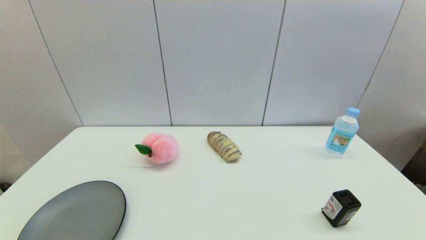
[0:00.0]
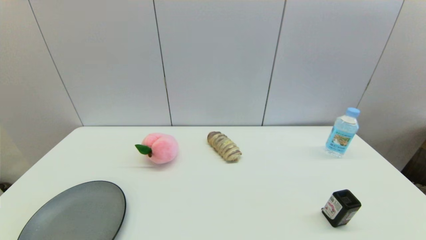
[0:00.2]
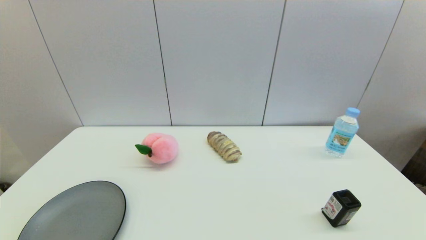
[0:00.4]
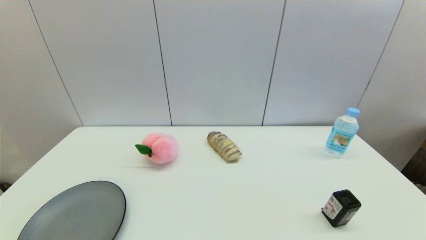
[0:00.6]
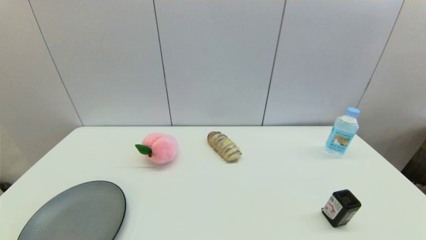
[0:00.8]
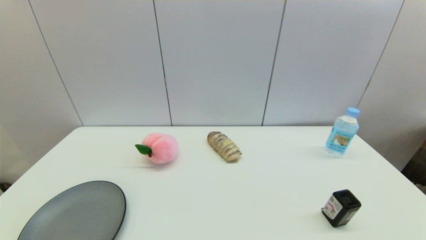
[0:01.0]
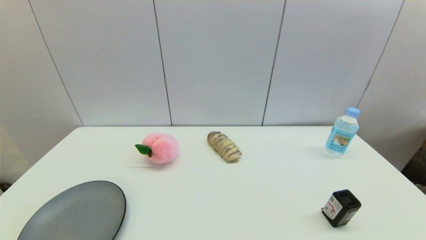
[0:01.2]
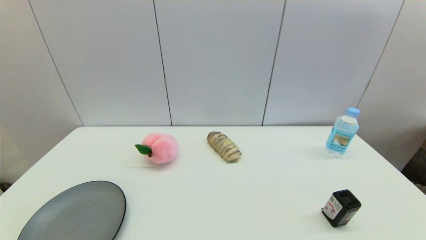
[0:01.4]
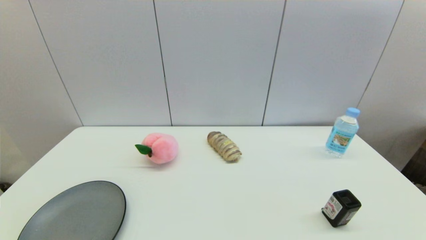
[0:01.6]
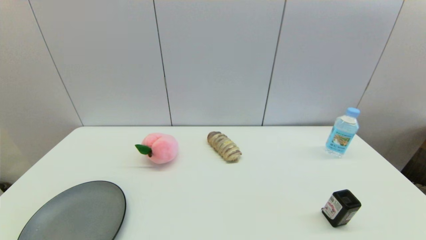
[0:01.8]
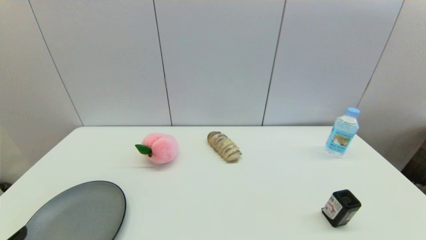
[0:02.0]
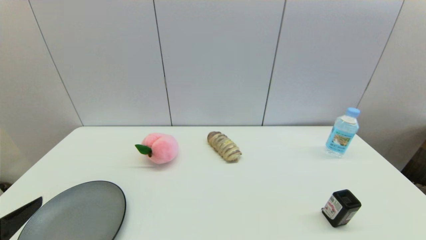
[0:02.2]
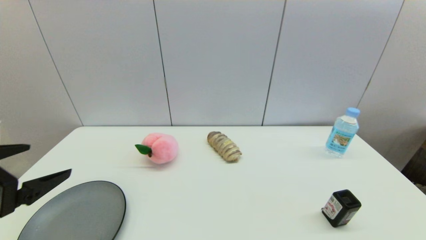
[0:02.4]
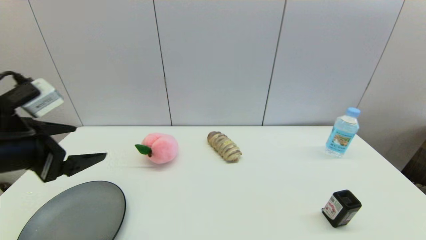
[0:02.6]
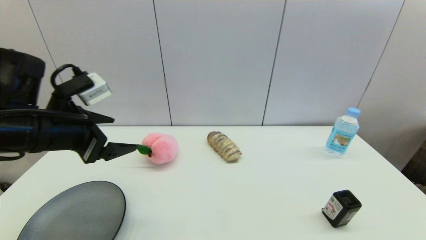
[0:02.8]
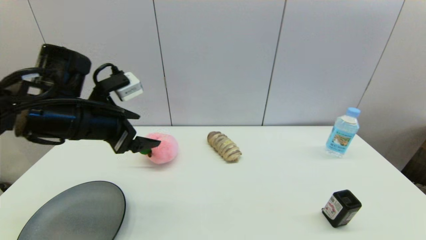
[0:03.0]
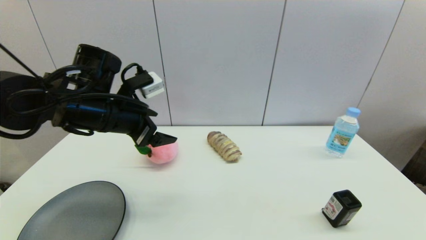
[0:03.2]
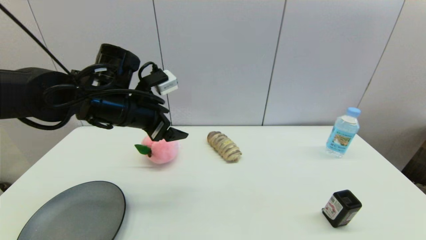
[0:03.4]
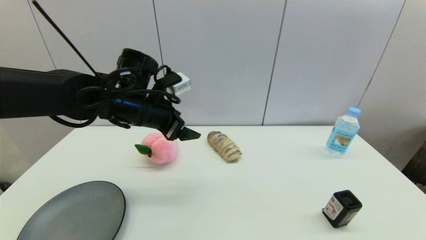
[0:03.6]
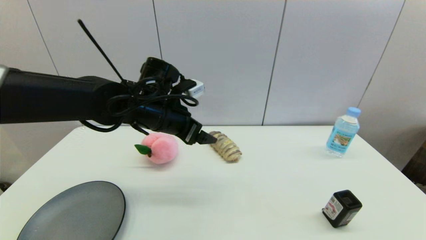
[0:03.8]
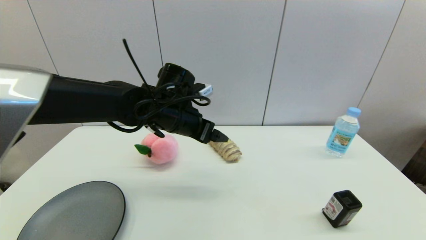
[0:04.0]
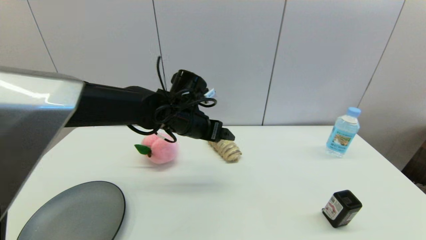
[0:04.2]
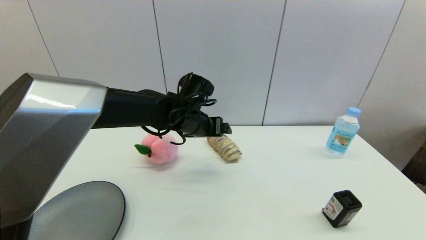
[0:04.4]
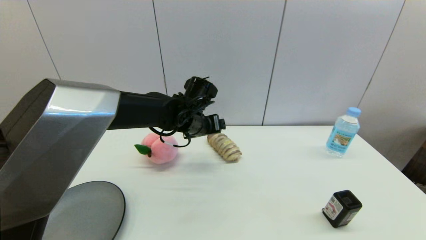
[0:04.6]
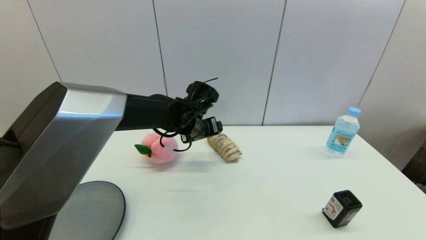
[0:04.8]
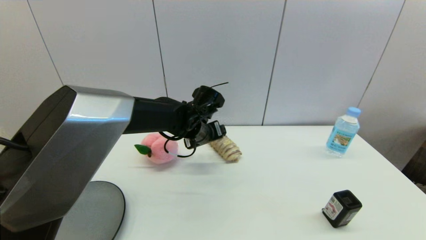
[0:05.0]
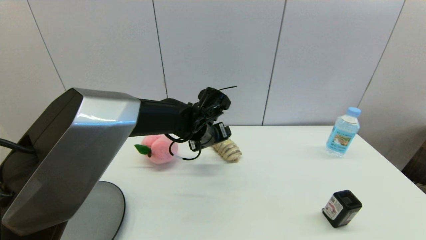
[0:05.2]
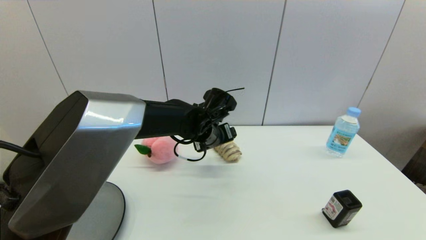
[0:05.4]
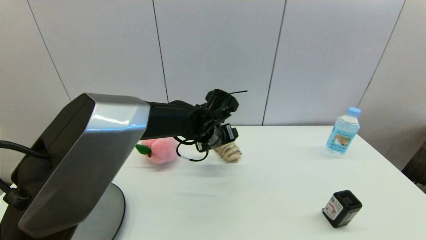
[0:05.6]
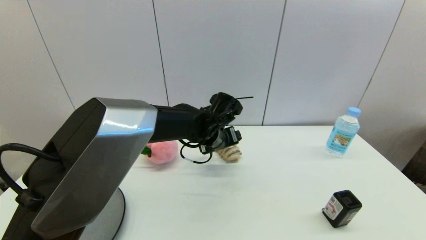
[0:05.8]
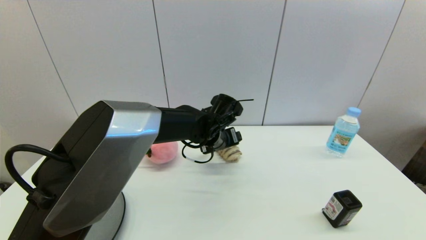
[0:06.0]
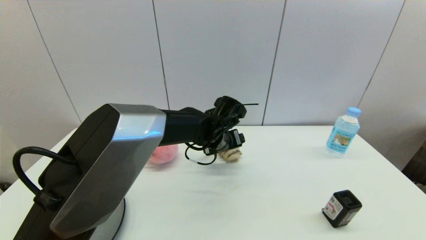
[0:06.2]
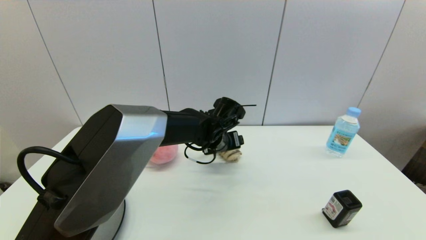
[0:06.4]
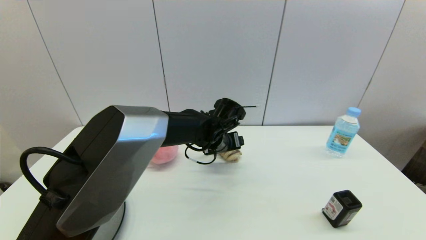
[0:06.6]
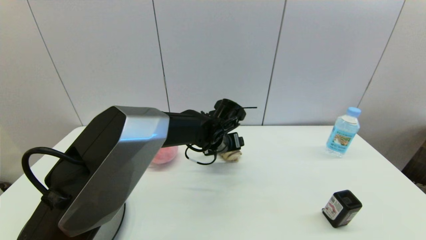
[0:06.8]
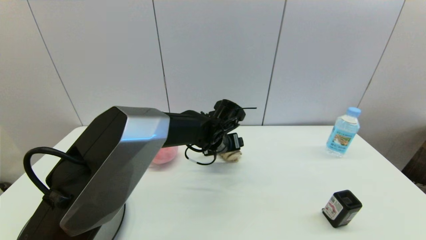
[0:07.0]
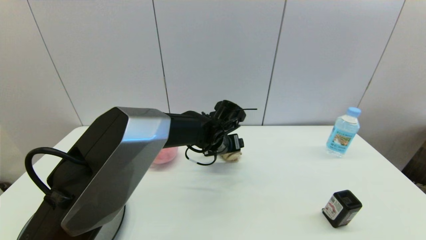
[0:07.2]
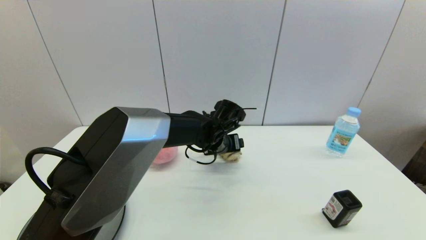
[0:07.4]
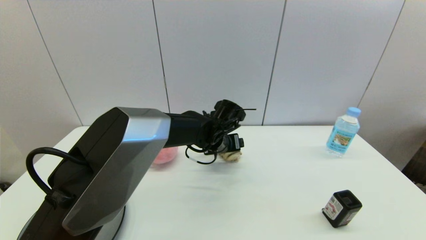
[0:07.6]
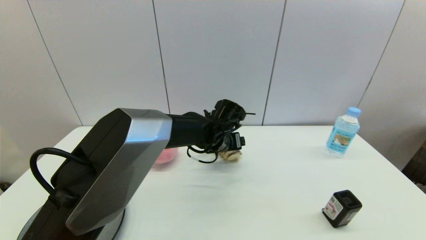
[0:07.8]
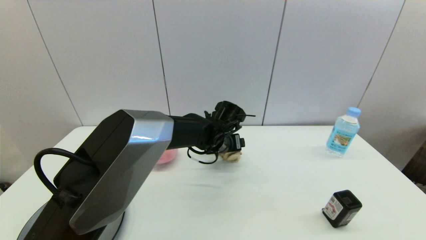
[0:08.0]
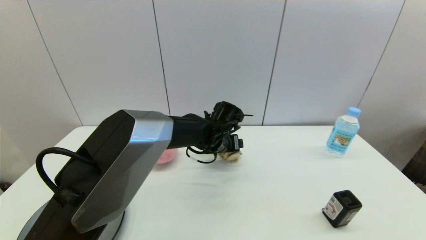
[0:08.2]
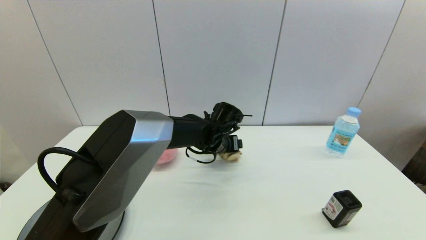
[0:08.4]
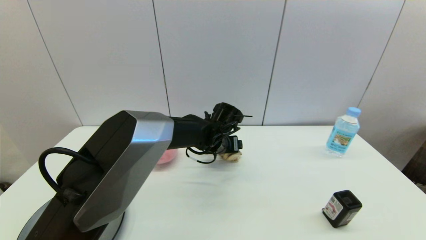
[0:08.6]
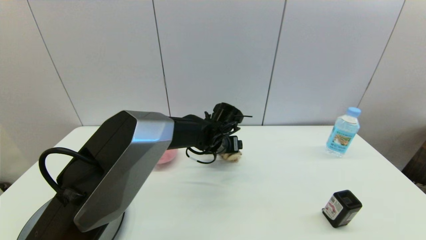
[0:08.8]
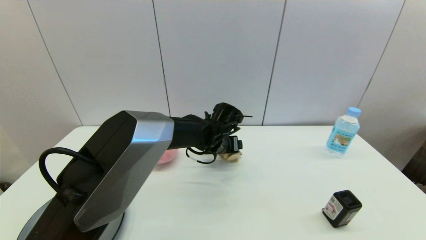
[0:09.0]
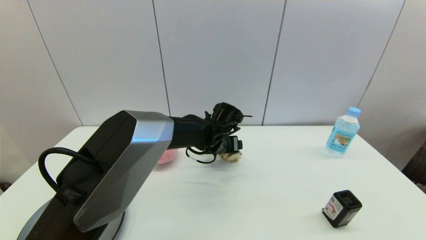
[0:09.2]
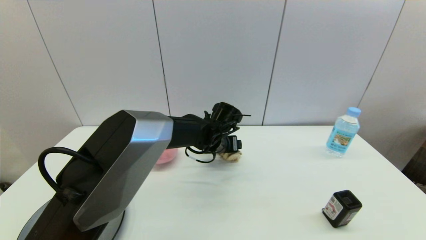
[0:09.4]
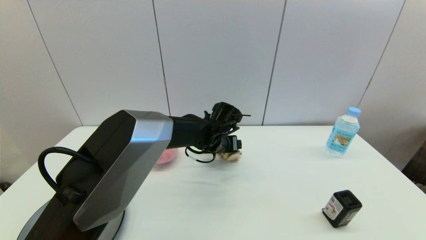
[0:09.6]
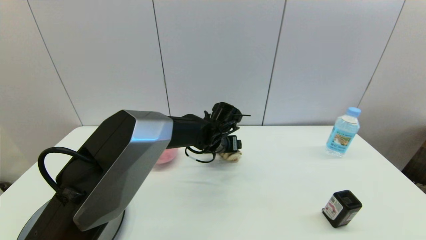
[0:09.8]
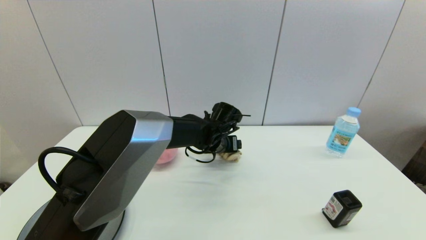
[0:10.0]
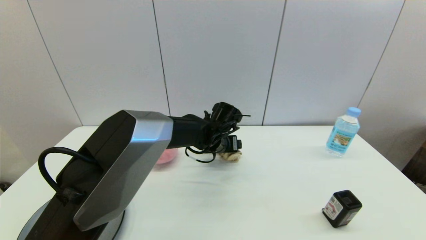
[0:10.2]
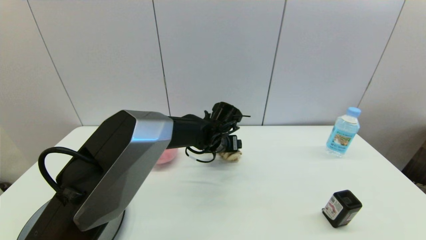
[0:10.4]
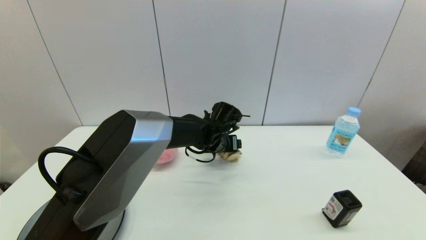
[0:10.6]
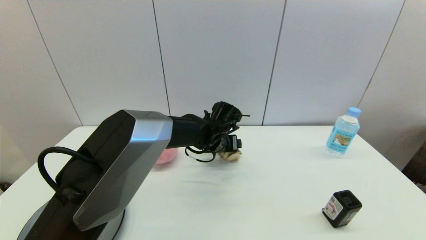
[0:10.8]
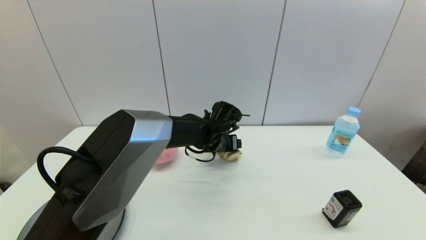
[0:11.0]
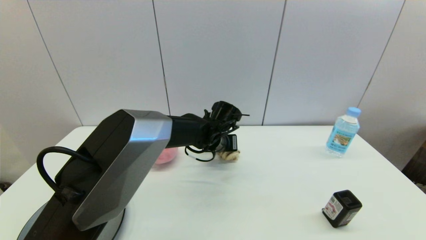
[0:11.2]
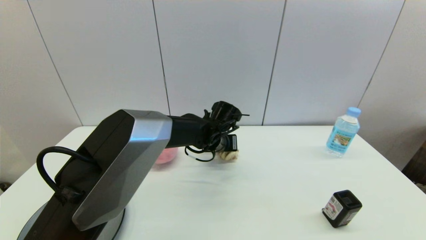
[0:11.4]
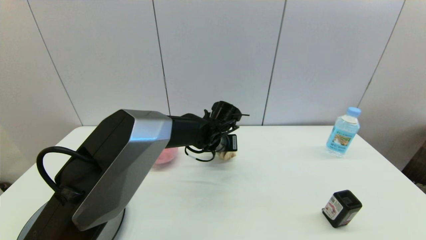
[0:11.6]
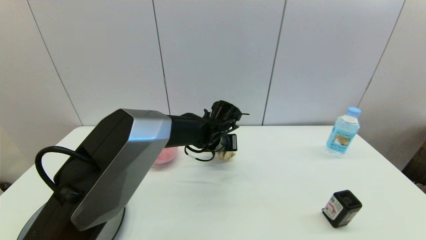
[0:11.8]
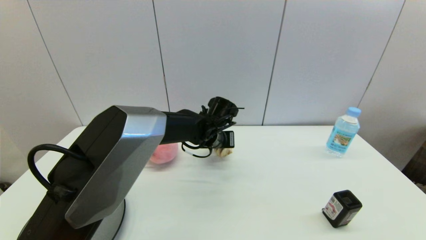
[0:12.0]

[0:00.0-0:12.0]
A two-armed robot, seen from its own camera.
Step, 2.0 to 11.8 s: Grasp the long bread with left gripper.
0.0 to 1.6 s: Both grippers stay about where they are.
1.6 to 3.0 s: The left gripper travels forward and upward by approximately 30 cm.
3.0 to 4.4 s: The left gripper goes approximately 20 cm to the right, forward and downward.
4.4 to 6.0 s: The left gripper moves to the right, some 5 cm.
6.0 to 9.0 s: The grippers stay close to where they were, moving slightly.
9.0 to 10.4 s: Both grippers stay about where they are.
10.4 to 12.0 s: The left gripper closes up.

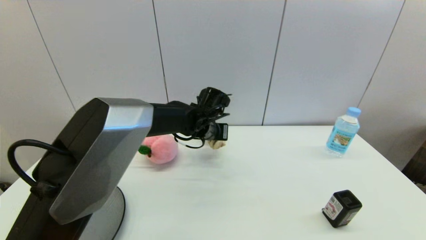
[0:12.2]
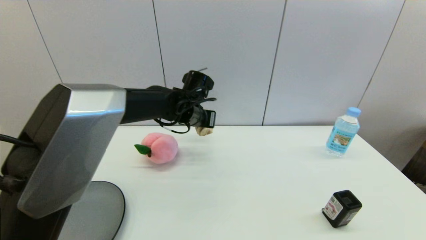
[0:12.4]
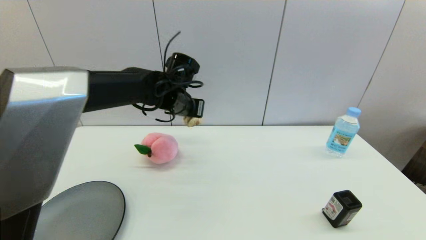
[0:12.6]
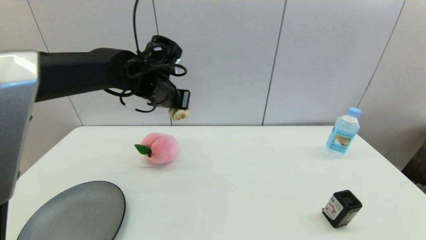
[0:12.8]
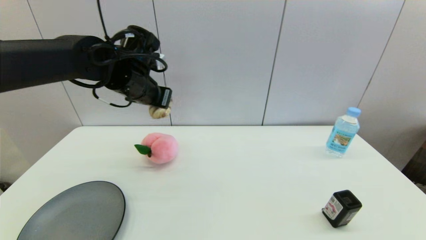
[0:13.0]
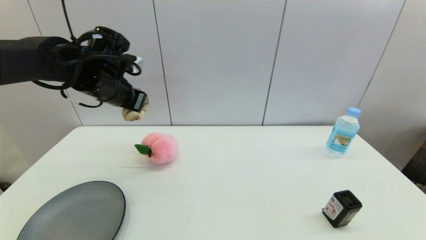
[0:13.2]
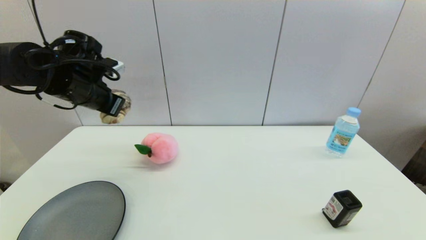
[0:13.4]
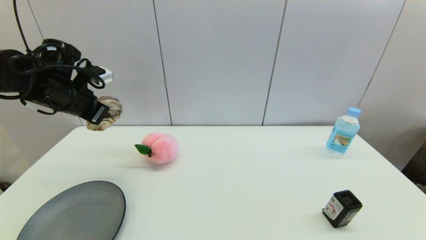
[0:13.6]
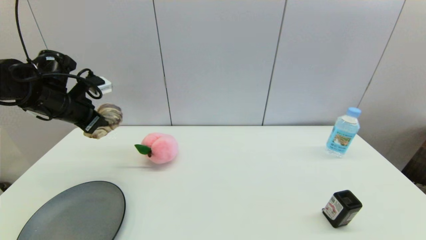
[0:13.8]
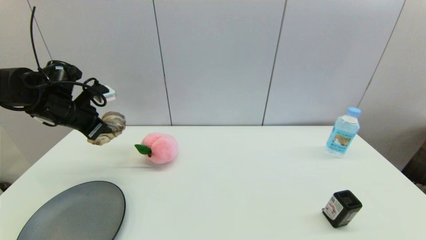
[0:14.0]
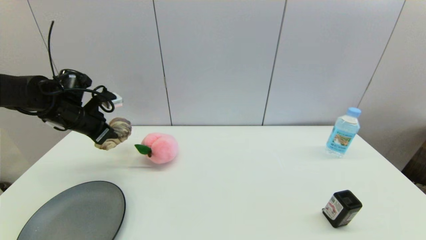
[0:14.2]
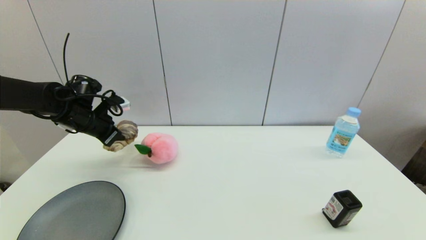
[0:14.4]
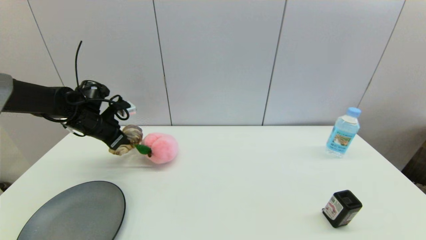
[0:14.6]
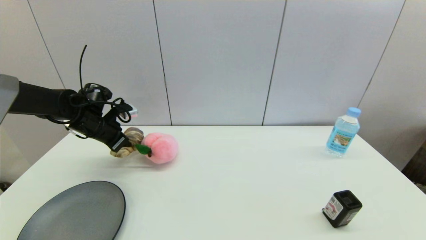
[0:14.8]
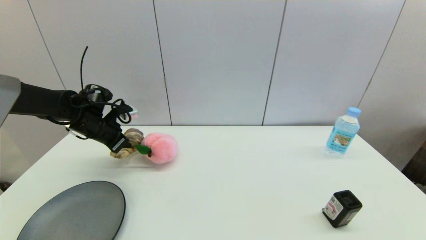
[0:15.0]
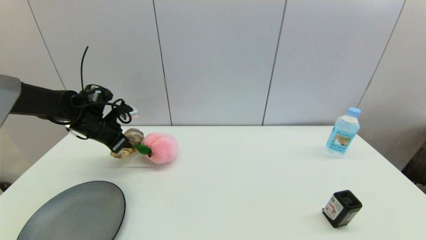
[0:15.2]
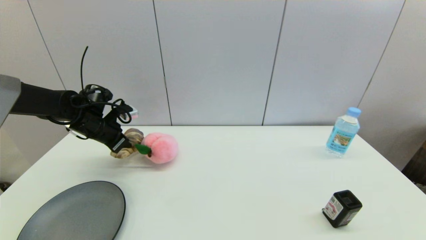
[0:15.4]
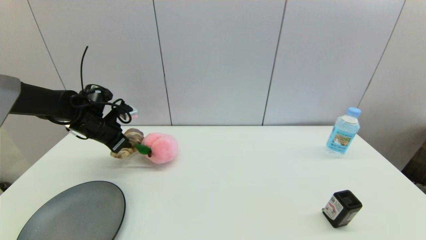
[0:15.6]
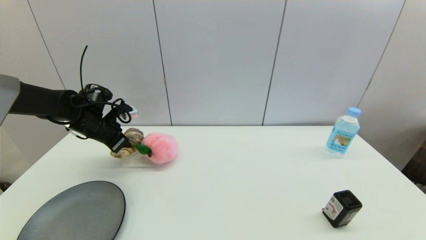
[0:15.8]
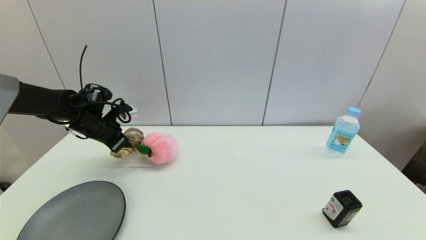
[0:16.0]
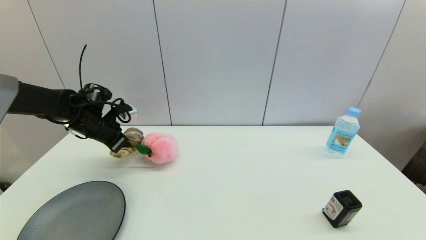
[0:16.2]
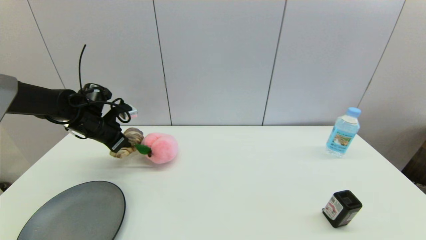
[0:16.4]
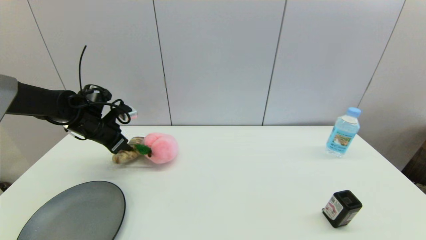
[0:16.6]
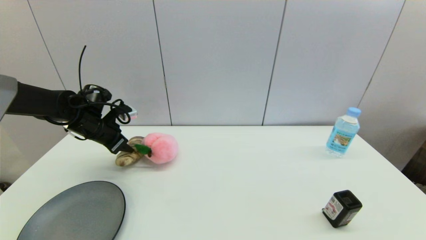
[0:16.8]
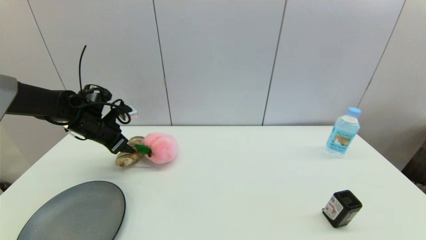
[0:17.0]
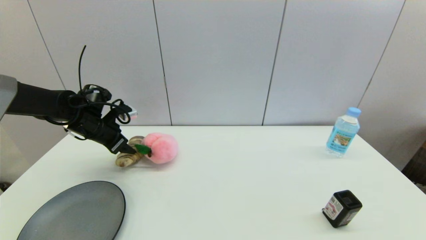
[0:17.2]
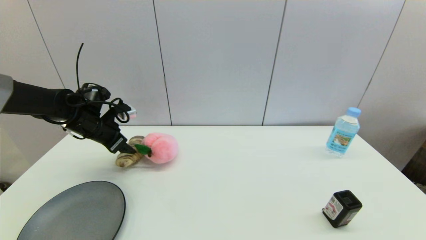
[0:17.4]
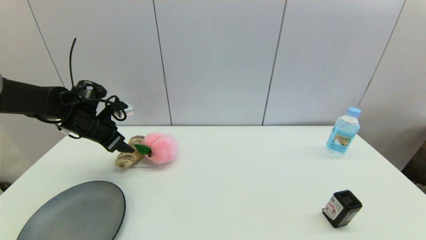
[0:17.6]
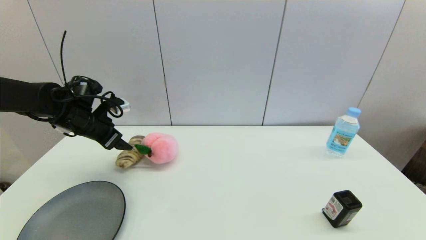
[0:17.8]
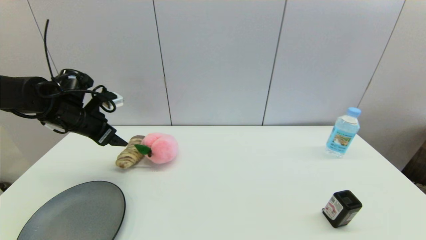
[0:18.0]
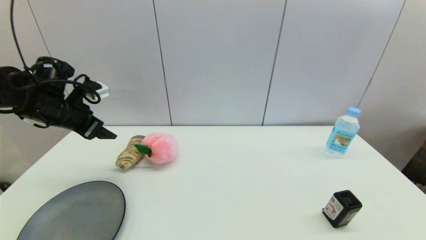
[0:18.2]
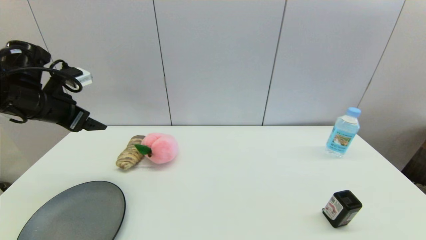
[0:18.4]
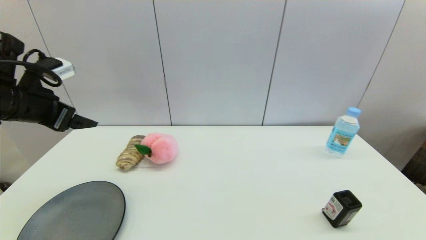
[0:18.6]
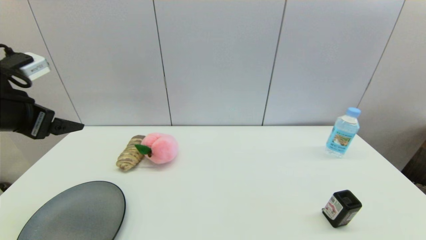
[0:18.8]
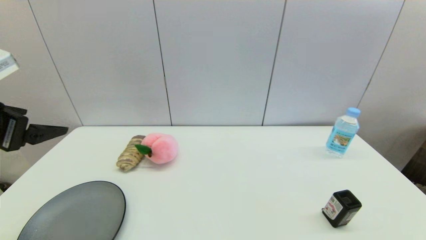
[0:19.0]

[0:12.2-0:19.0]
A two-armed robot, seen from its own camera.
Step, 12.2 to 16.6 s: Place the long bread on the table with left gripper.
12.2 to 13.6 s: The left gripper heads to the left, covering some 30 cm.
13.6 to 15.0 s: The left gripper is displaced downward by some 10 cm.
15.0 to 16.2 s: Neither gripper changes place.
16.2 to 17.6 s: The left gripper opens up.
17.6 to 19.0 s: The left gripper shifts about 25 cm backward and upward.
